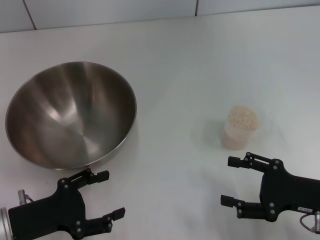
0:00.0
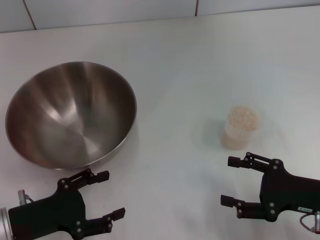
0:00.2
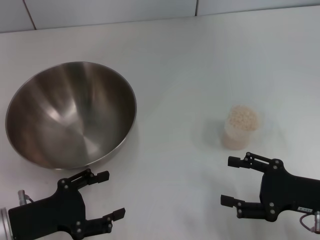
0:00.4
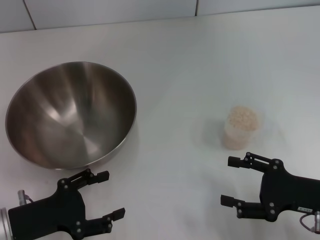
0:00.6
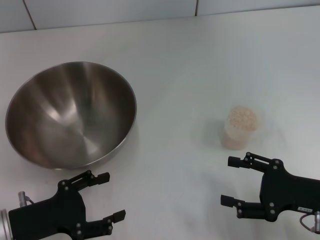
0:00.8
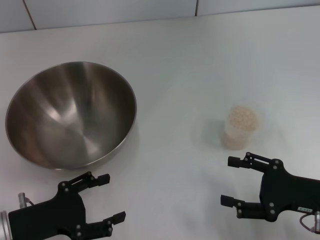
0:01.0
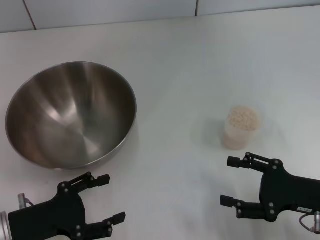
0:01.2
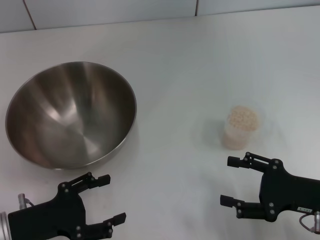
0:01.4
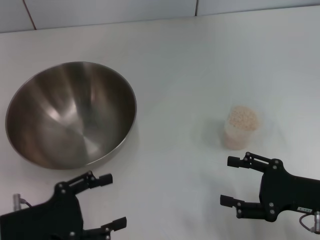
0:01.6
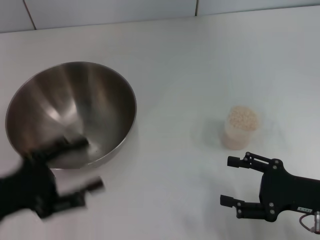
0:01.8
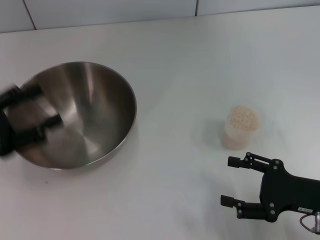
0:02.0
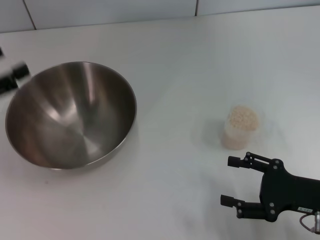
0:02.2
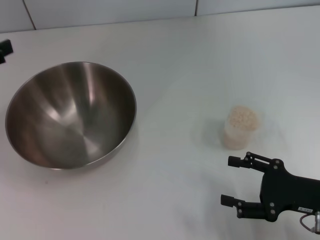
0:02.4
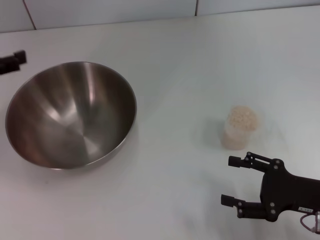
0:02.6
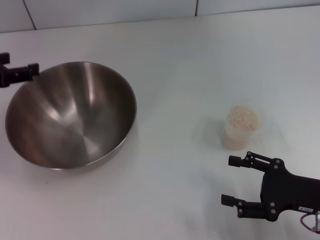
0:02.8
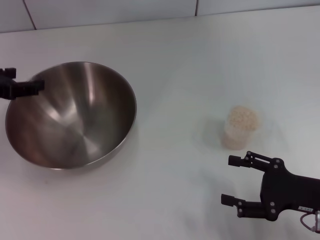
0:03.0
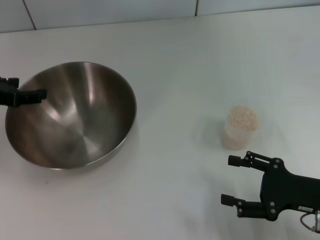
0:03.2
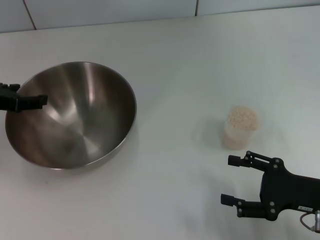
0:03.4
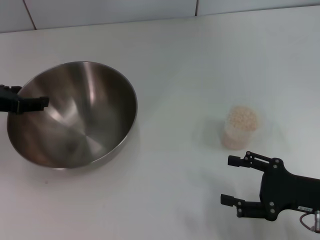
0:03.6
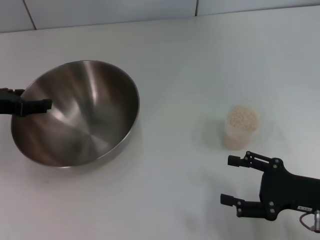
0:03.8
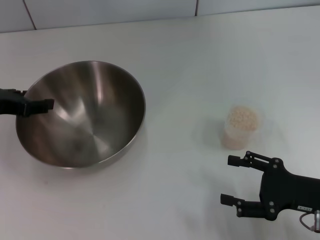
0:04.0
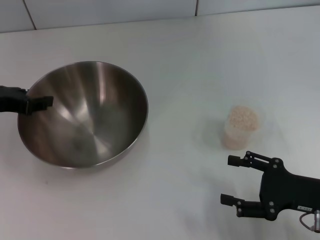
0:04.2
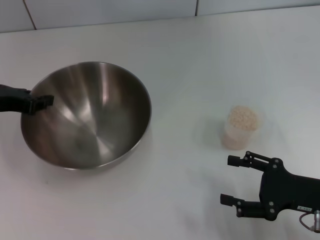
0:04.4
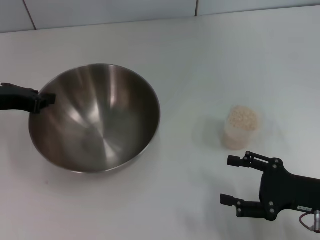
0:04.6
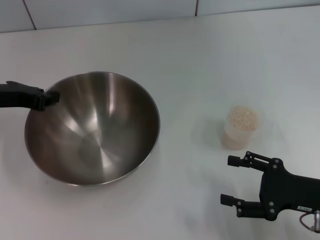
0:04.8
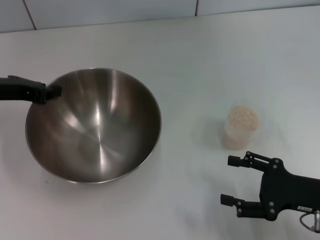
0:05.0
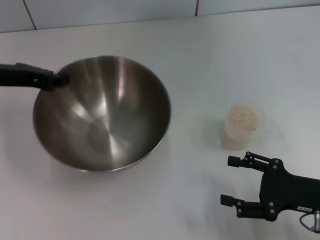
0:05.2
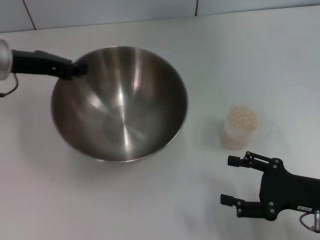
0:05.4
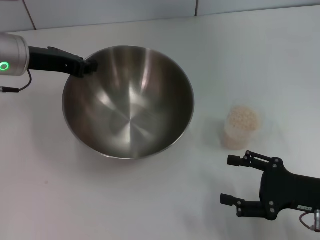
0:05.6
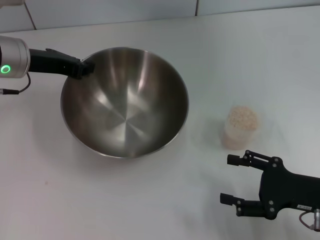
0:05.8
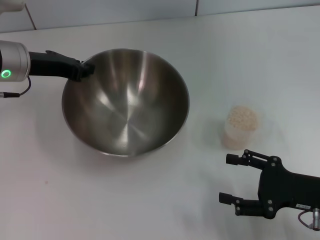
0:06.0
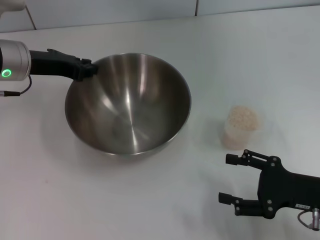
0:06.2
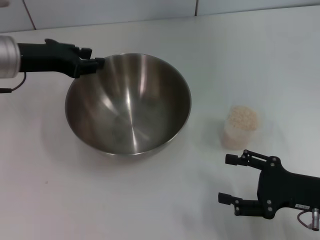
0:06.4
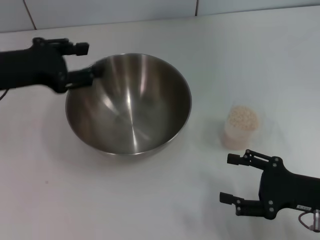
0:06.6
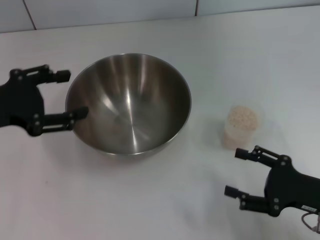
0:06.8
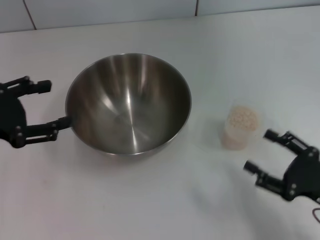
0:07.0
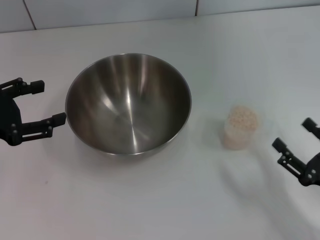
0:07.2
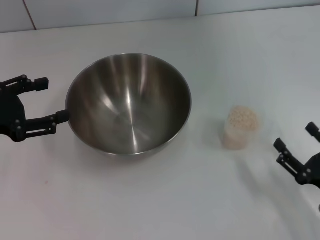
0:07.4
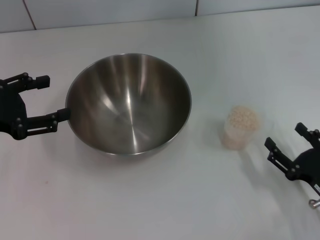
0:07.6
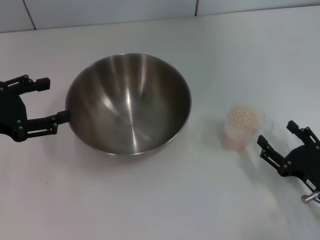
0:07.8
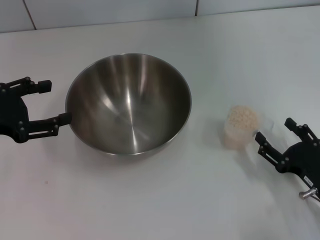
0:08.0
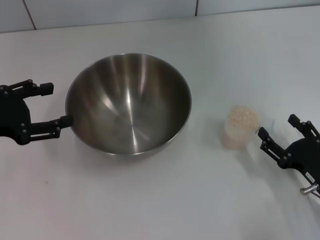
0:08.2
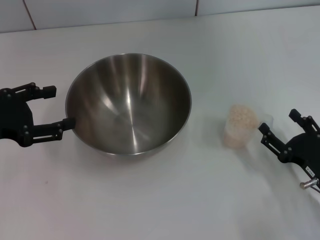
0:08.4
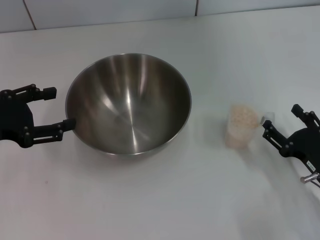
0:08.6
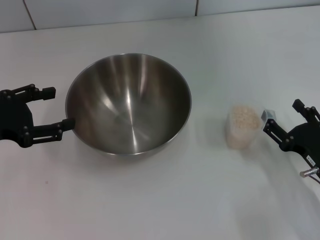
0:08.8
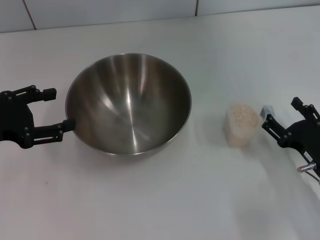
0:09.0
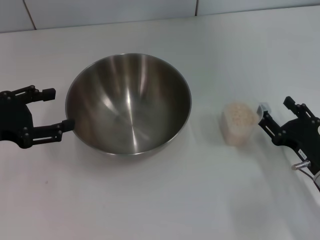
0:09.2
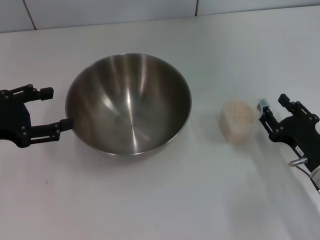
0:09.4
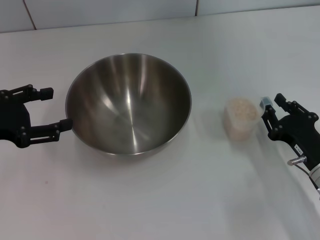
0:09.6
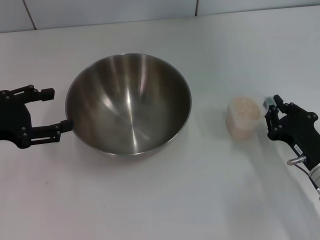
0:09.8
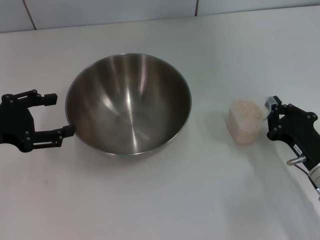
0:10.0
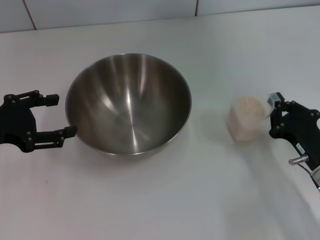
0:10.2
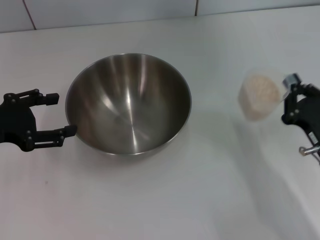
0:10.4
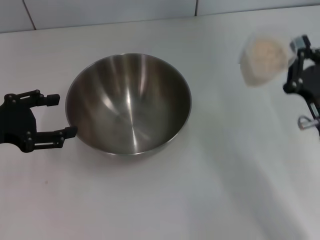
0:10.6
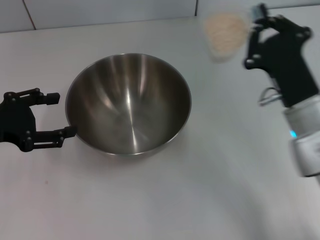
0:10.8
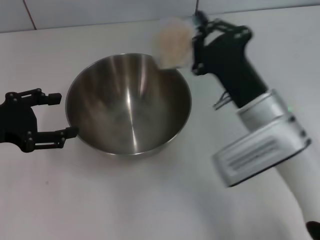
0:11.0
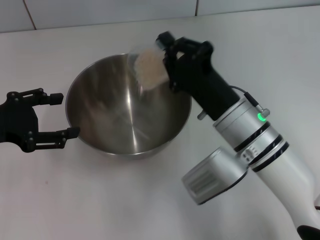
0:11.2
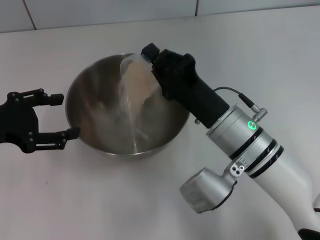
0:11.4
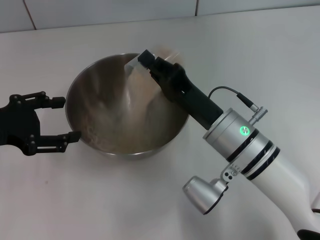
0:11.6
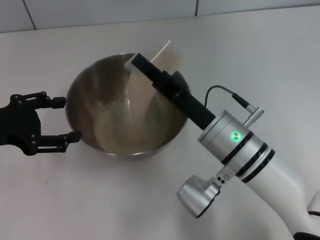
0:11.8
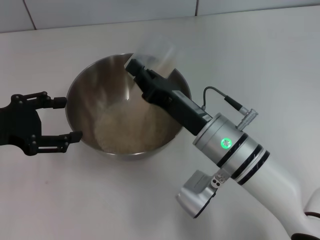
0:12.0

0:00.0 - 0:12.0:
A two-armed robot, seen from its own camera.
Task of the whole recording: Place the bowl in the middle of the table with one hand and pour the rice from the grain cup into it with the other hand.
Step, 0:00.0 - 0:05.2: Pick up the bowl with the left gripper.
Step, 0:05.4 - 0:06.8: Place the bowl in the center of view with the left gripper.
Step, 0:07.0 - 0:10.6: Pick up the cup with rice in it with the right gripper.
0:00.0 - 0:01.6: The grippers move only a little.
0:01.6 - 0:03.0: The left gripper travels forward and upward by about 20 cm.
0:03.0 - 0:04.4: The left gripper closes its fingers.
0:04.4 - 0:06.0: The left gripper heads to the right and forward, covering some 10 cm, and closes up.
0:06.0 - 0:07.6: The right gripper moves roughly 5 cm. Meanwhile the left gripper shifts some 15 cm backward and to the left, and opens.
0:07.6 - 0:09.0: The right gripper moves forward, some 5 cm.
0:09.0 - 0:10.4: The right gripper closes.
0:10.4 - 0:12.0: The right gripper travels to the left by about 15 cm.

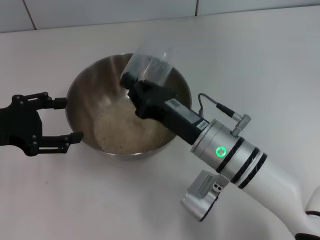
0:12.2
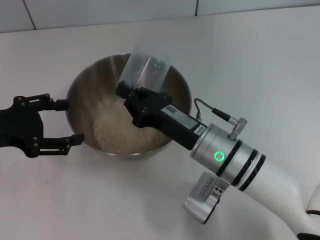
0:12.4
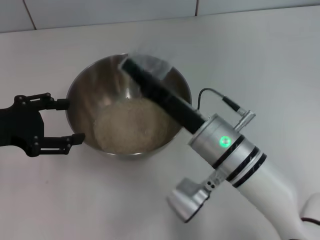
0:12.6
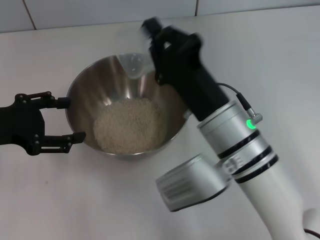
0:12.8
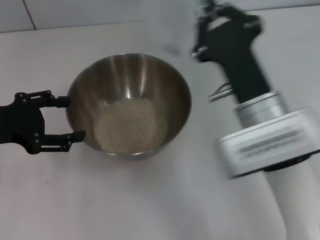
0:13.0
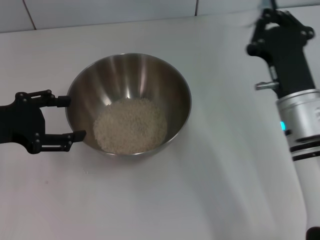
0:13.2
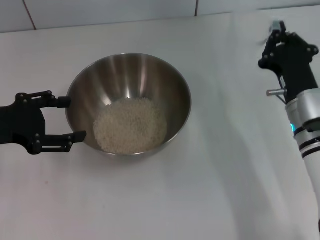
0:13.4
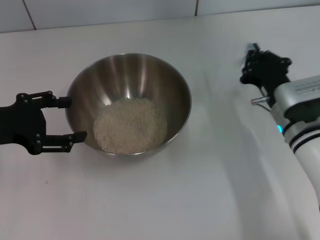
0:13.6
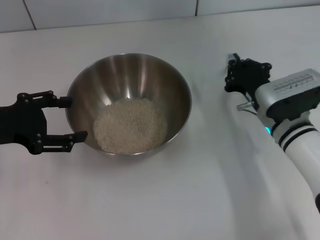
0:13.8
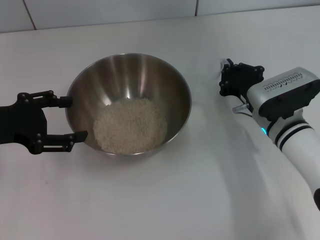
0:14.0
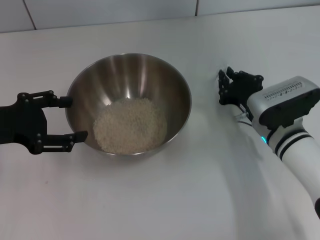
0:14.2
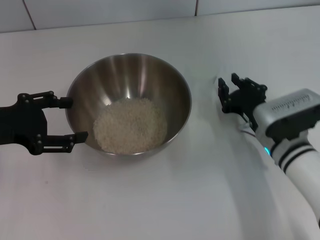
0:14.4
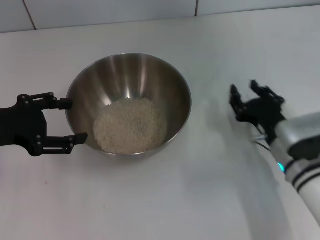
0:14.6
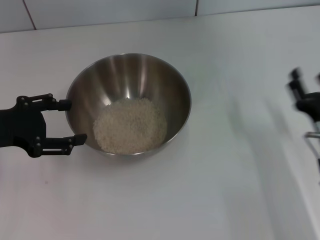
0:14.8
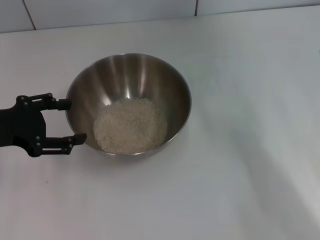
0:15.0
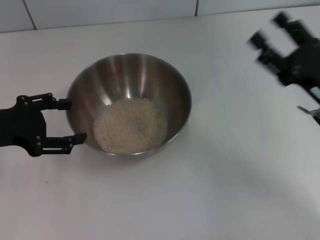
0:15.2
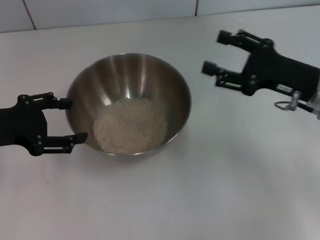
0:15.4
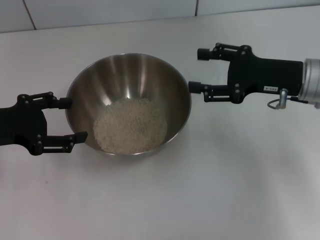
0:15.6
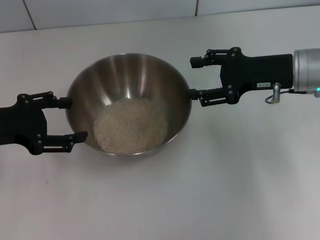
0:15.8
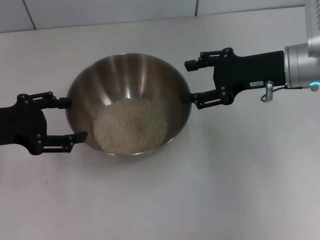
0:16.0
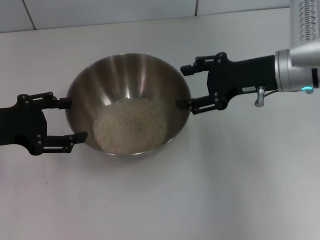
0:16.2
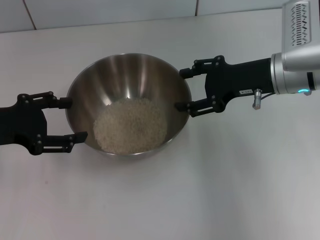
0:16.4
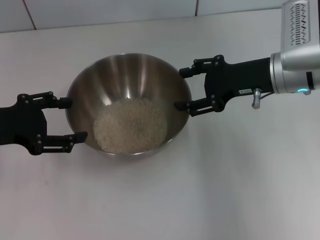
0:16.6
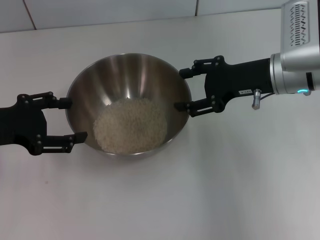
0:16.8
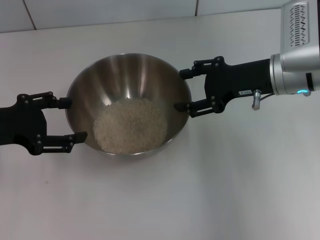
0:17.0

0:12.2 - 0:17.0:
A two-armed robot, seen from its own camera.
Task of the whole recording: Place the bowl in the middle of the table with one hand and pour the rice from the grain cup into it with the other hand.
Step, 0:13.2 - 0:14.6: Place the cup on the table with the right gripper.
0:12.2 - 0:13.8: The right gripper is displaced to the right and forward by about 10 cm.
0:13.8 - 0:15.4: The right gripper heads upward and to the right, covering about 10 cm, and opens its fingers.
0:15.4 - 0:17.0: The right gripper goes approximately 5 cm to the left.
